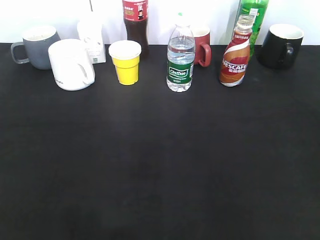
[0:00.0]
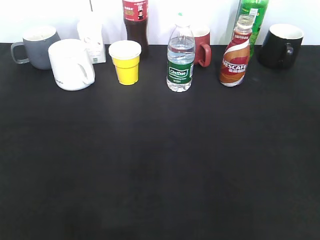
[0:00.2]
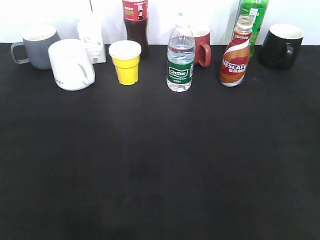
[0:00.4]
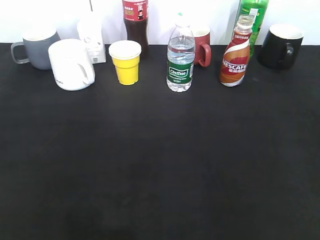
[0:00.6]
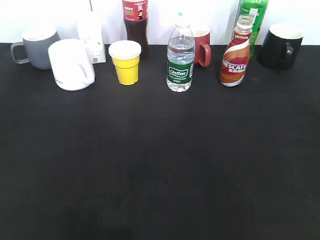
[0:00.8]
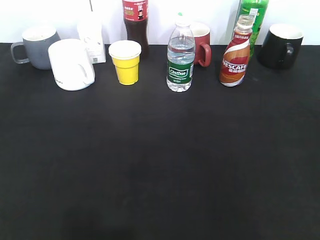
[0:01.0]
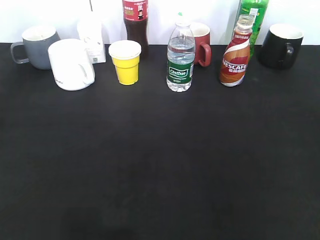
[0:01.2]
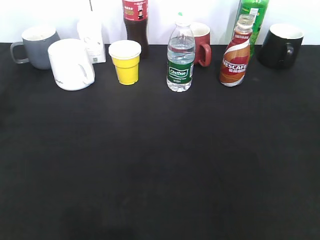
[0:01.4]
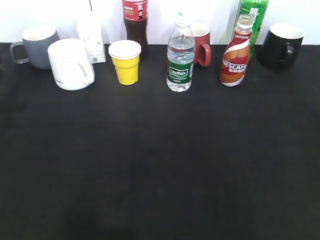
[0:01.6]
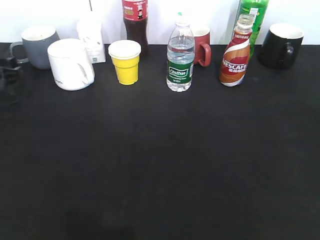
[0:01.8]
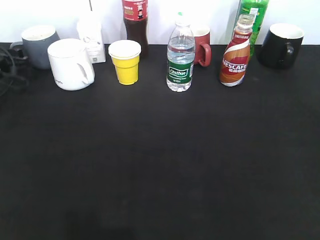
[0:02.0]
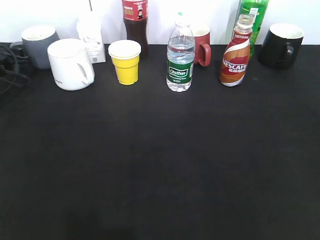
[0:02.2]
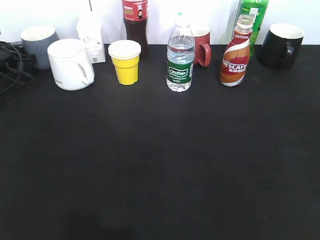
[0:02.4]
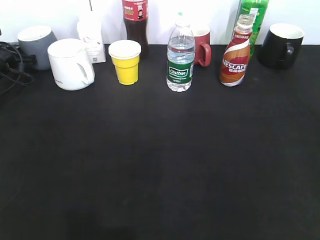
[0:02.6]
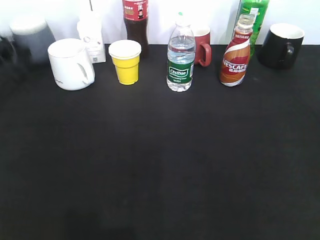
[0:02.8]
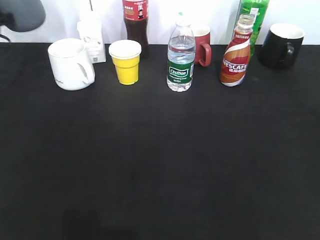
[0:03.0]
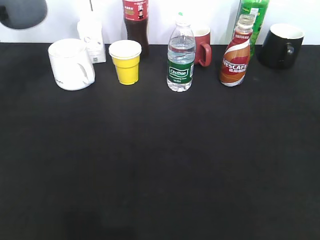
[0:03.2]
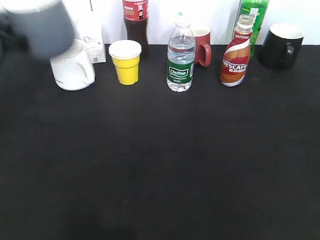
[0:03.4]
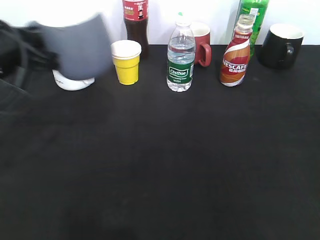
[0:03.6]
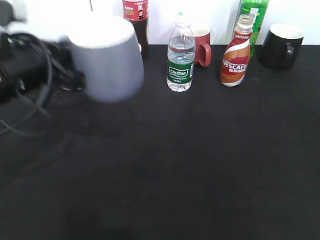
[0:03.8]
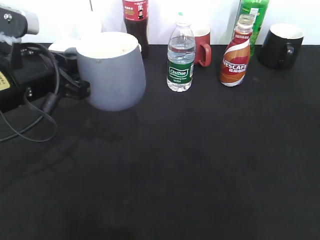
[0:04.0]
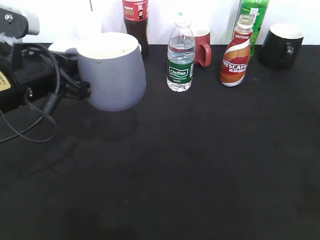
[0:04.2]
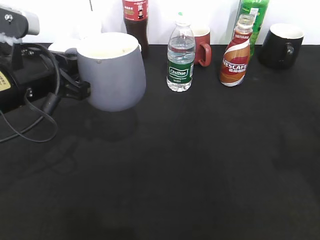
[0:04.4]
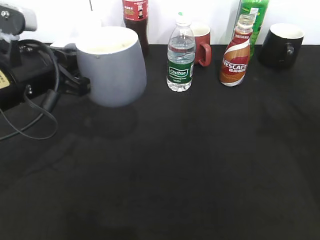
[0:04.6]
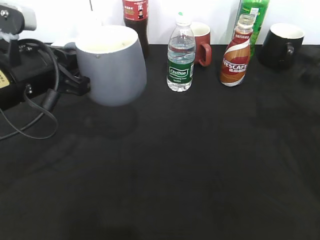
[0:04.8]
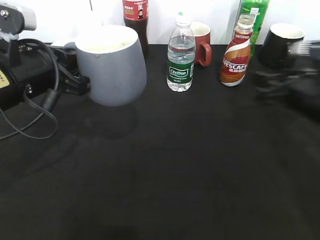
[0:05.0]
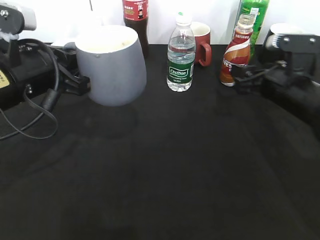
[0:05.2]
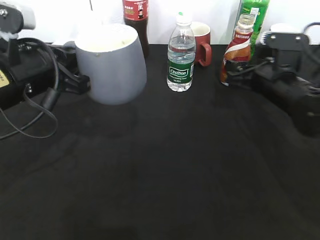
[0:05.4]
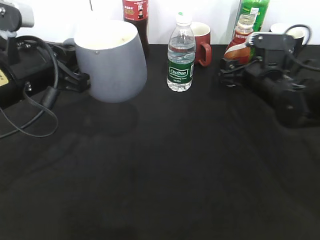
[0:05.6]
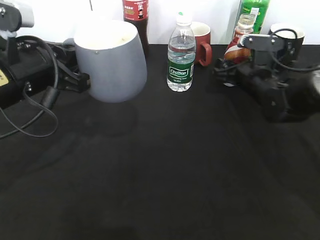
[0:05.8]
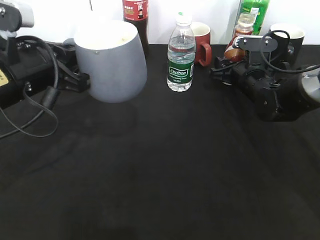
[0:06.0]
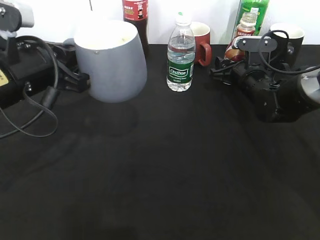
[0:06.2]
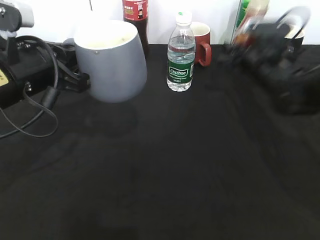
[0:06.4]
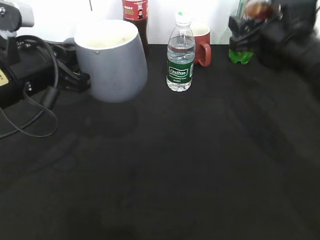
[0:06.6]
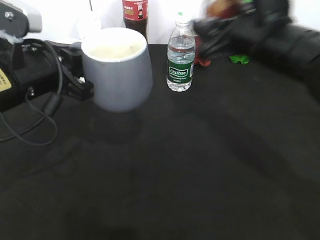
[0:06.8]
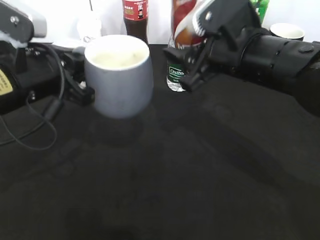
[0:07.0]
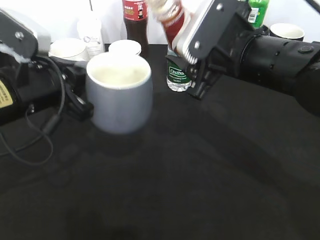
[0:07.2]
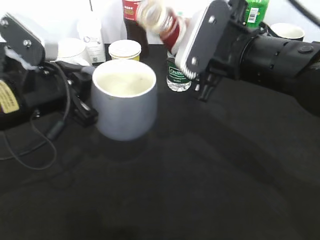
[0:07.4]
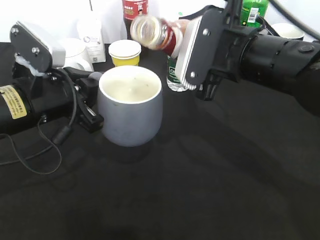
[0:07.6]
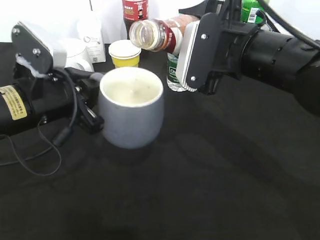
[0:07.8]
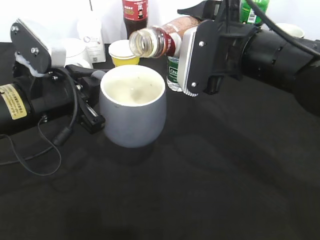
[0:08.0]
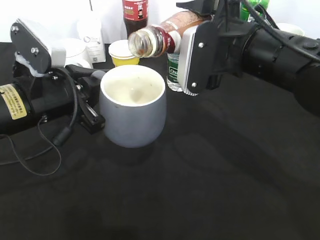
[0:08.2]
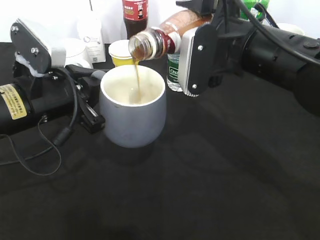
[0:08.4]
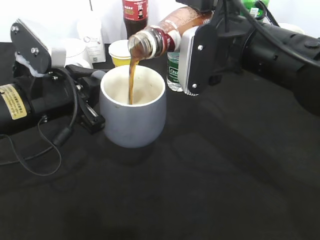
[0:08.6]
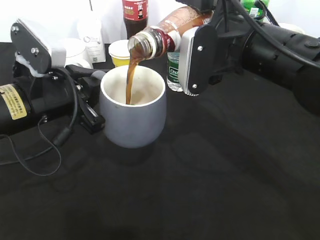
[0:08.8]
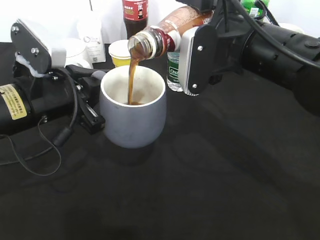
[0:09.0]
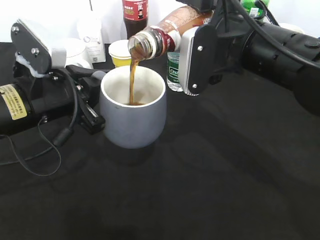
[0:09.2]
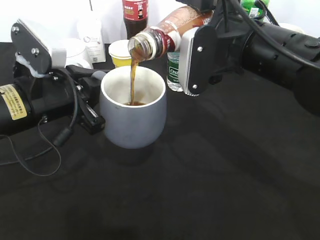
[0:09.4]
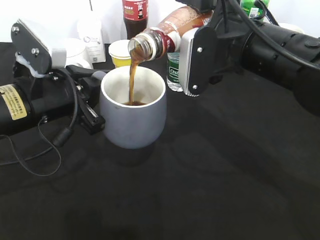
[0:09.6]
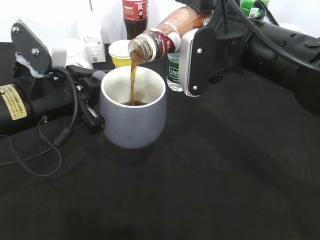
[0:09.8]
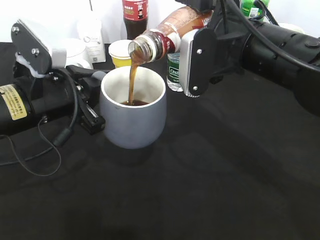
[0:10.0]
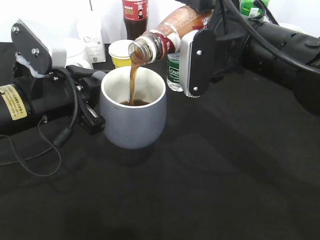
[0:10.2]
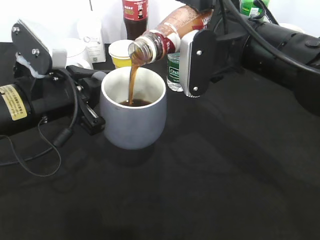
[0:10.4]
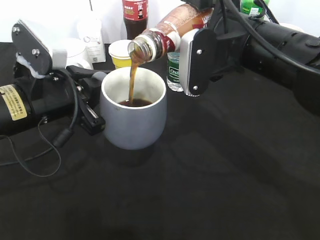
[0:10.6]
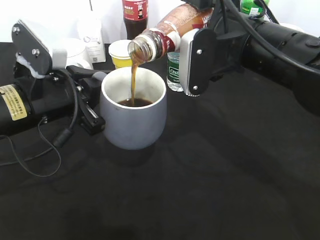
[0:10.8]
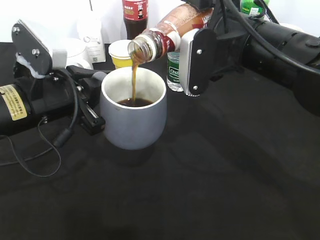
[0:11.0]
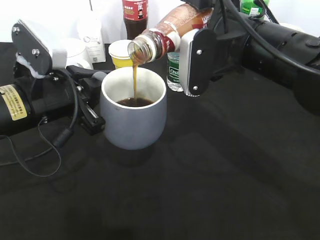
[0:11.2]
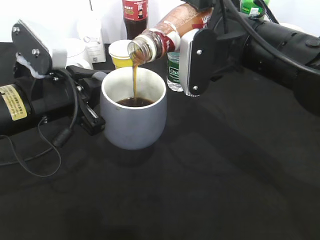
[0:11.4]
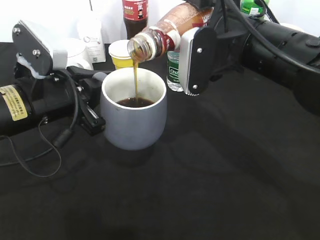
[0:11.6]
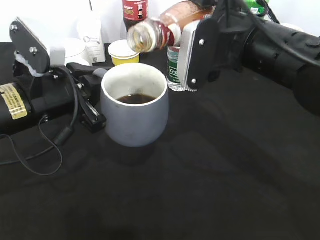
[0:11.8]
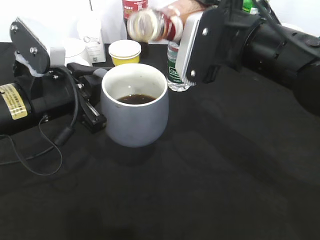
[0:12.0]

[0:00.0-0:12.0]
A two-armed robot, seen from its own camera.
Step, 2.8 to 4.4 s: Lift the grey cup with left gripper.
Step, 4.8 to 6.0 s: Grasp the bottle with coffee with right gripper.
0.0 to 1.6 s: The left gripper moves forward, roughly 30 cm.
1.6 to 3.0 s: The left gripper travels forward by roughly 15 cm, and closes.
3.0 to 4.4 s: The left gripper is displaced backward and to the right by about 25 cm, while the right gripper is displaced forward by roughly 15 cm.
4.4 to 6.0 s: The right gripper is displaced forward and downward by some 35 cm, and opens and closes again.
6.0 to 7.6 s: The right gripper shifts roughly 20 cm upward, backward and to the left.
9.0 to 10.4 s: Both grippers stay about where they are.
10.4 to 12.0 s: The grippers stay close to where they were, moving slightly.

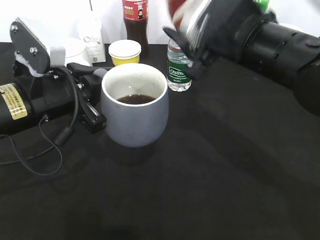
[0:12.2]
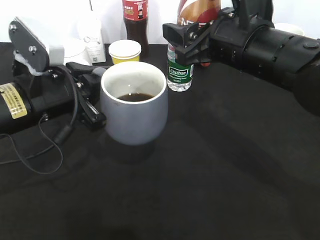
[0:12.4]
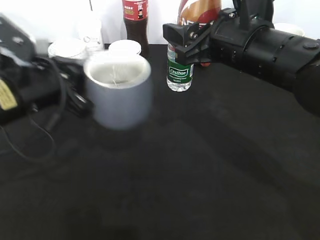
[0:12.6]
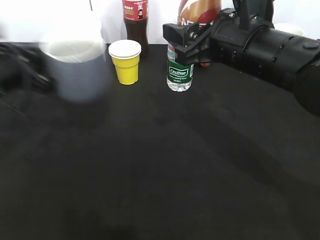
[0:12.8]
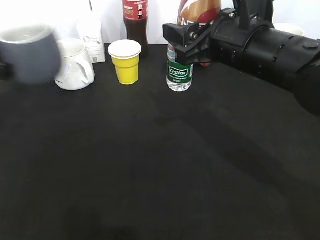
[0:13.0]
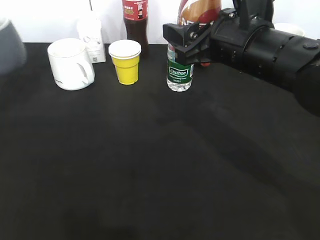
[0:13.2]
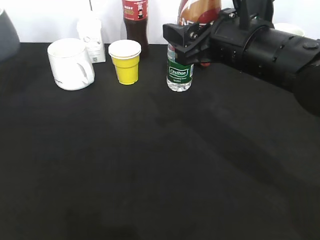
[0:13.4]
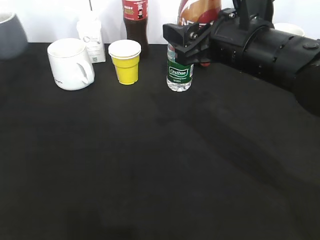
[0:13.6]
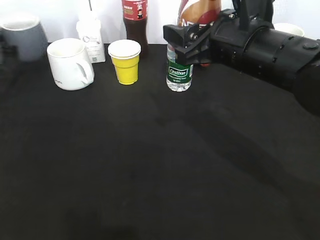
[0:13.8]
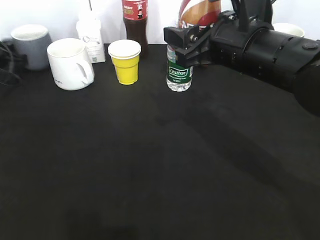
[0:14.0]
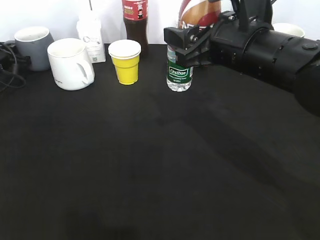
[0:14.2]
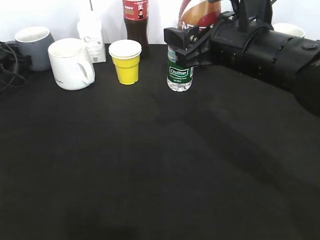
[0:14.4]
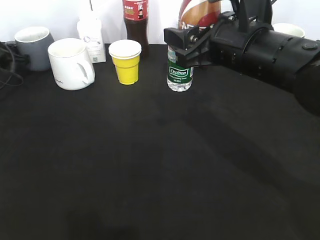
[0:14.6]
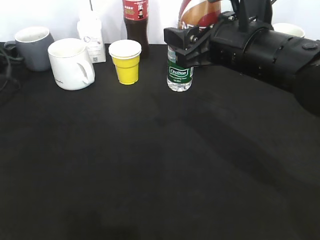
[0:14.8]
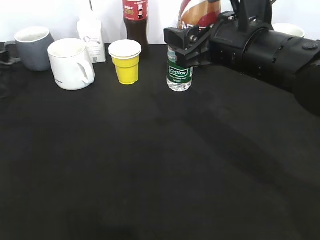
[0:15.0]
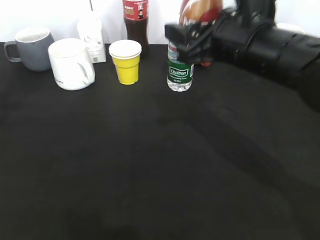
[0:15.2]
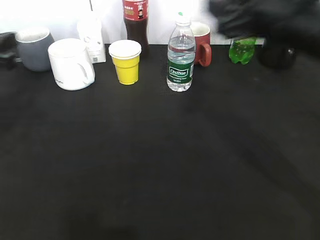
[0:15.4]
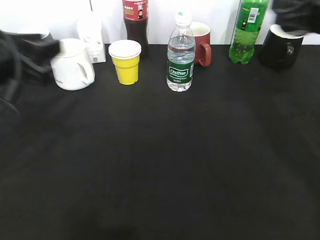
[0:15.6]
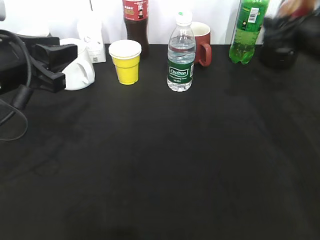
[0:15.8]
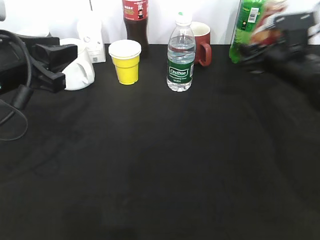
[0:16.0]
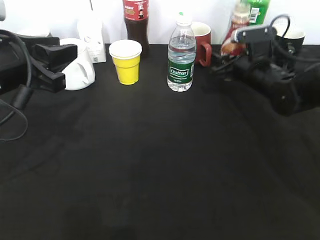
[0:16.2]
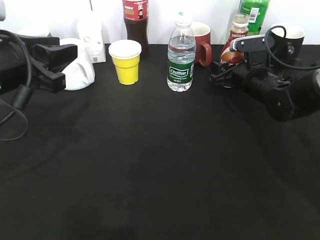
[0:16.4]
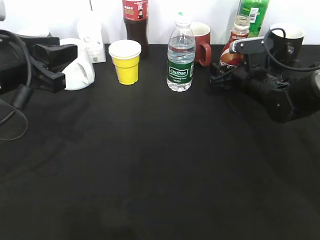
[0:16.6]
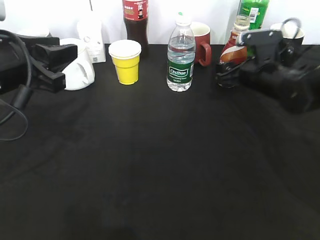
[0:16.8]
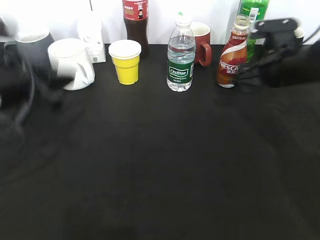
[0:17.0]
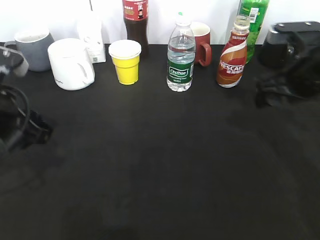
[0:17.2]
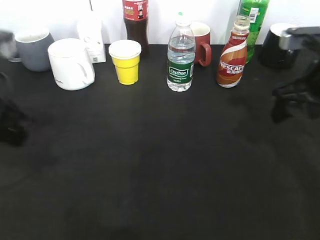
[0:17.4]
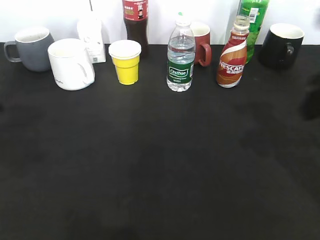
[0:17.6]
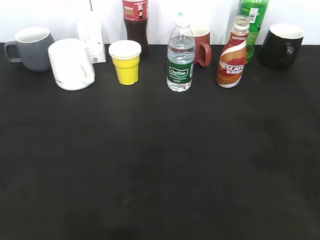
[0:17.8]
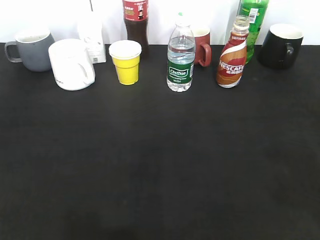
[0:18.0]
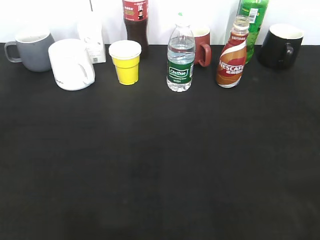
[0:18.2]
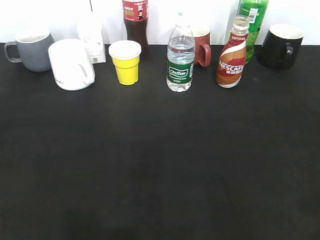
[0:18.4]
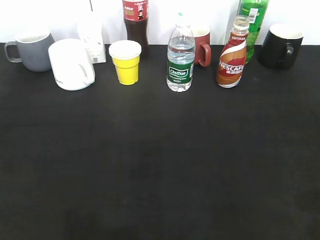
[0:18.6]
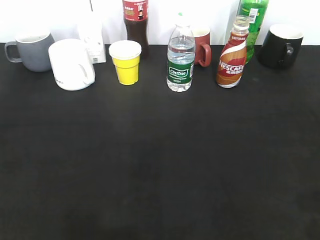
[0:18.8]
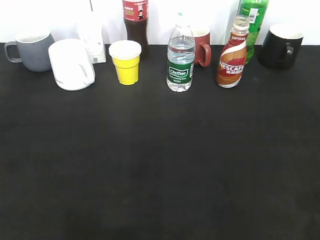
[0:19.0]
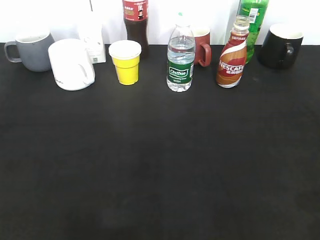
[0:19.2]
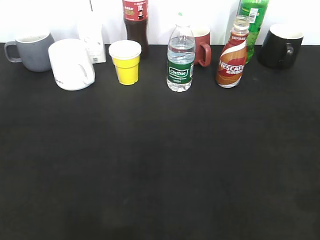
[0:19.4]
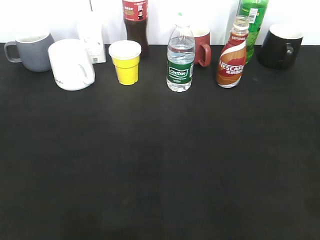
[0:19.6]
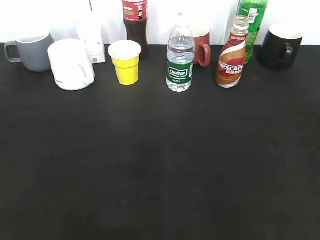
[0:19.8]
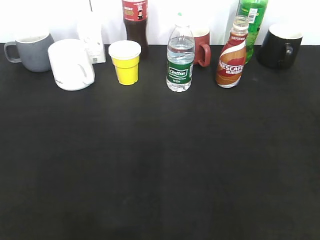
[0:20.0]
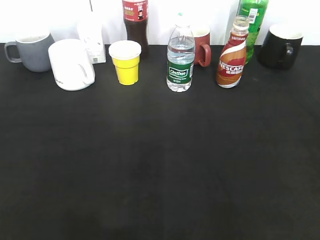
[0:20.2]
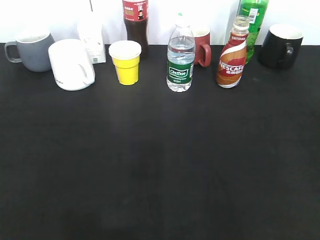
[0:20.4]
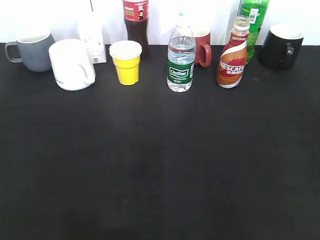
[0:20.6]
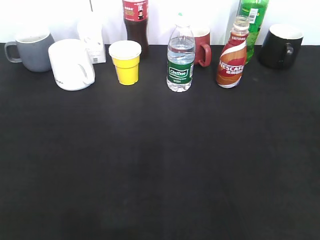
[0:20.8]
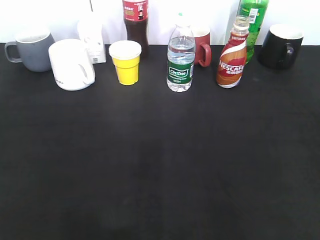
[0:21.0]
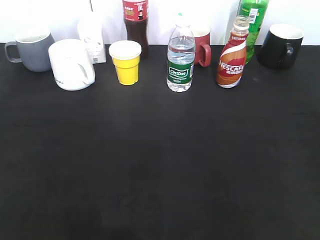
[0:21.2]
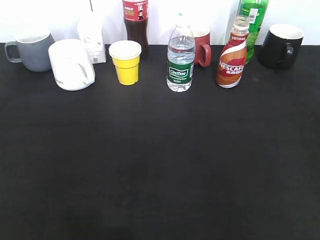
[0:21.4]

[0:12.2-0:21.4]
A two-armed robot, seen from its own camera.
Step, 12.2 to 15.0 s: Place the grey cup on the table with left gripper.
Step, 15.2 to 17.0 s: Place the coffee bottle on the table with right gripper.
12.2 to 13.8 s: The left gripper goes about 30 cm to the left and forward.
13.8 to 15.2 s: The left gripper heads backward, covering approximately 15 cm, and opens up.
15.2 to 16.8 s: The right gripper shifts about 20 cm downward, forward and to the right; the left gripper heads to the right and backward, covering roughly 15 cm.
16.8 to 18.4 s: The right gripper heads backward and upward, covering about 40 cm, while the left gripper heads backward and to the left, covering some 25 cm.

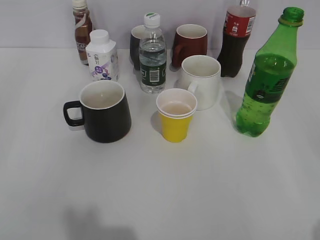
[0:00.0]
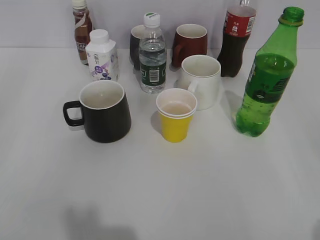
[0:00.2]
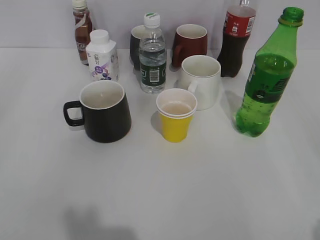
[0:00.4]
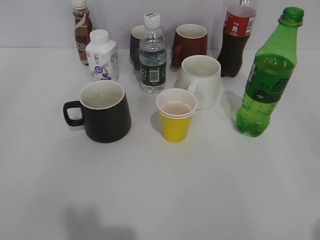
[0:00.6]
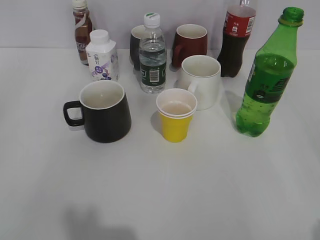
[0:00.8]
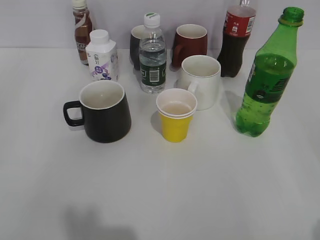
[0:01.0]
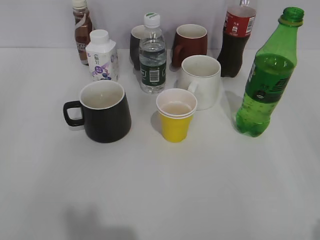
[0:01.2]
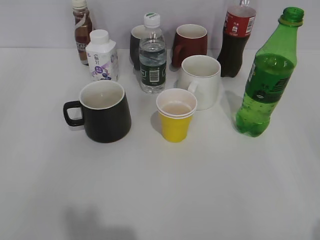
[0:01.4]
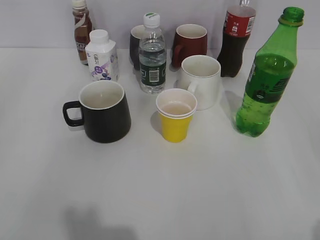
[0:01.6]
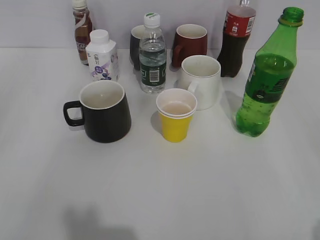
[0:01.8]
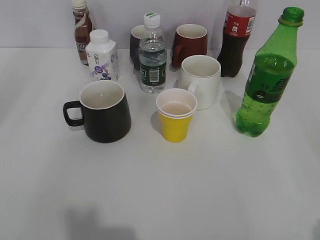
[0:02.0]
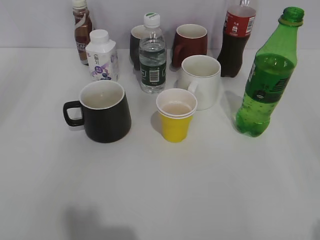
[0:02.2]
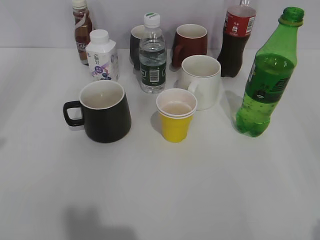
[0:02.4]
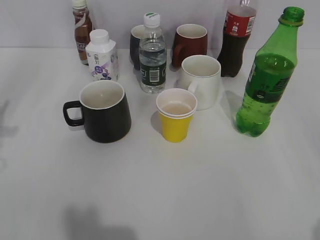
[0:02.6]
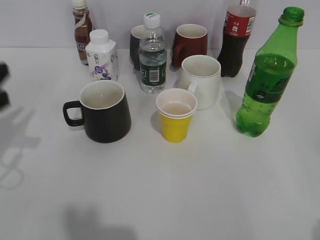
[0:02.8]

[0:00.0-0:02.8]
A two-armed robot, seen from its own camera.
1.4 to 2.8 s: The left gripper travels forward by some 20 cm.
